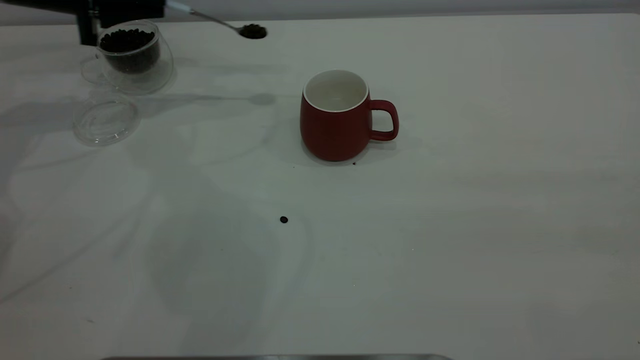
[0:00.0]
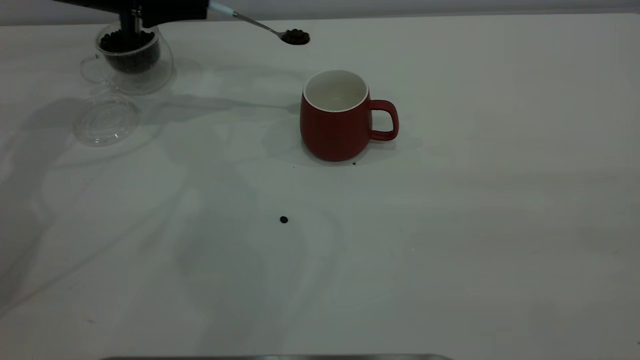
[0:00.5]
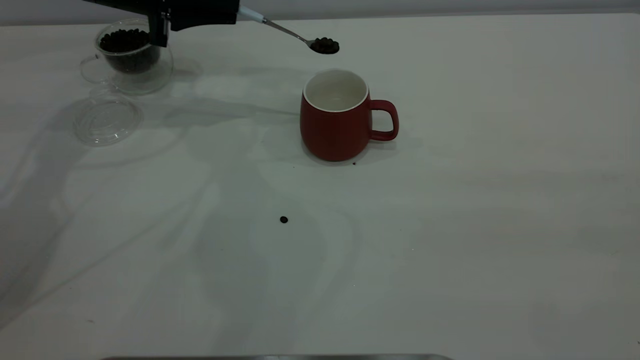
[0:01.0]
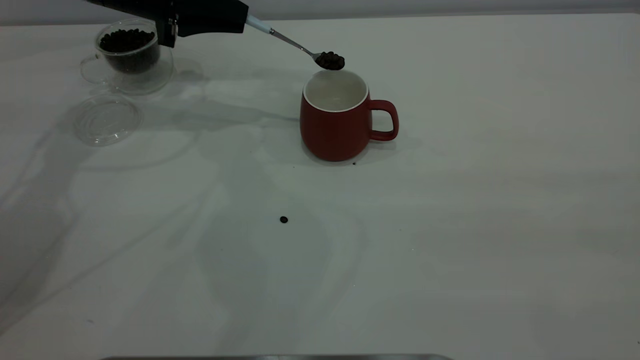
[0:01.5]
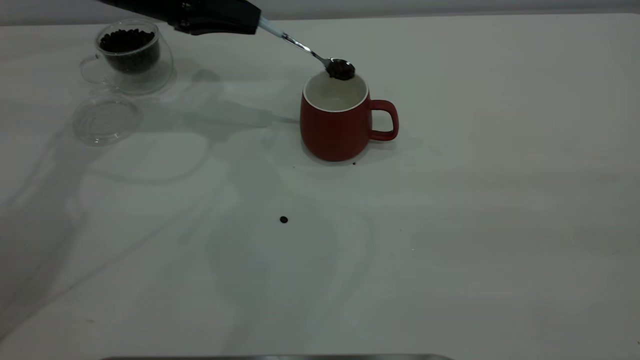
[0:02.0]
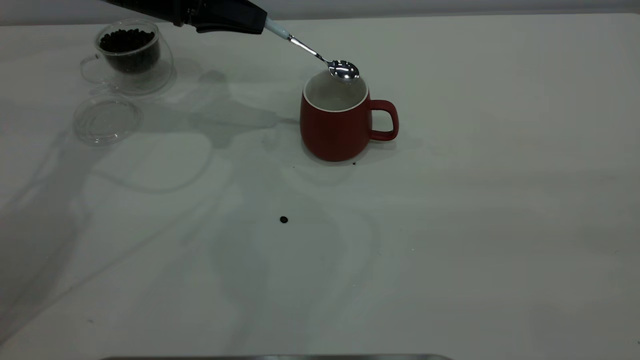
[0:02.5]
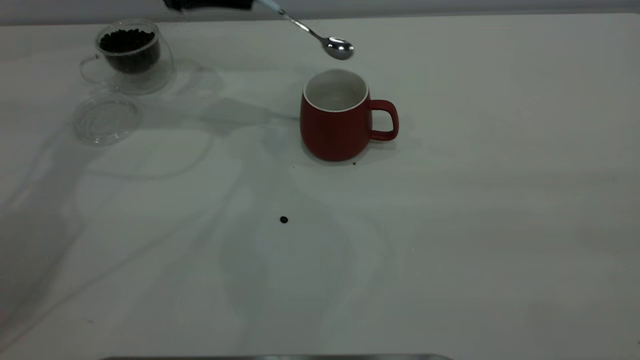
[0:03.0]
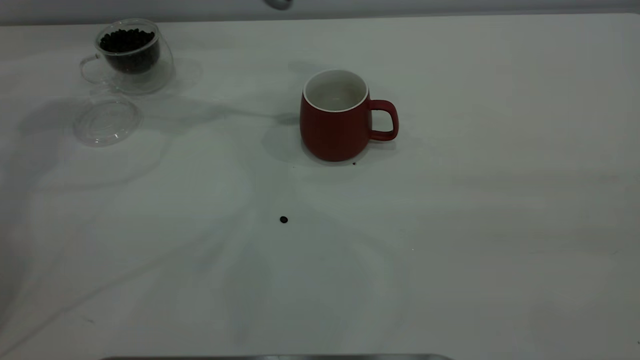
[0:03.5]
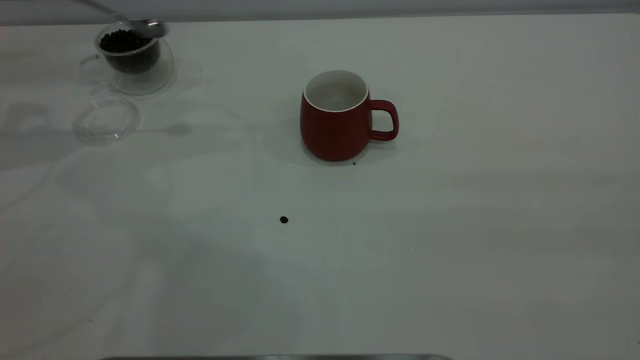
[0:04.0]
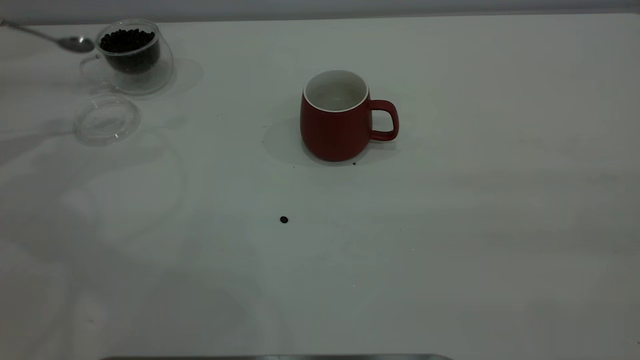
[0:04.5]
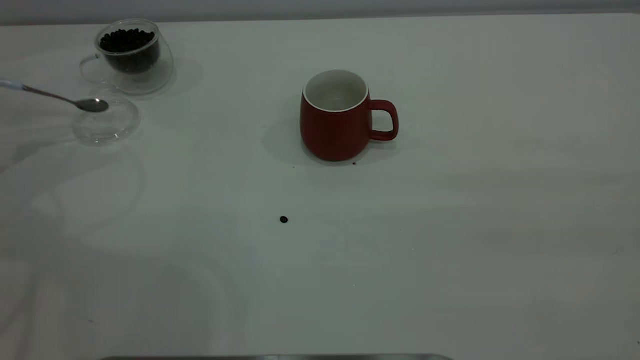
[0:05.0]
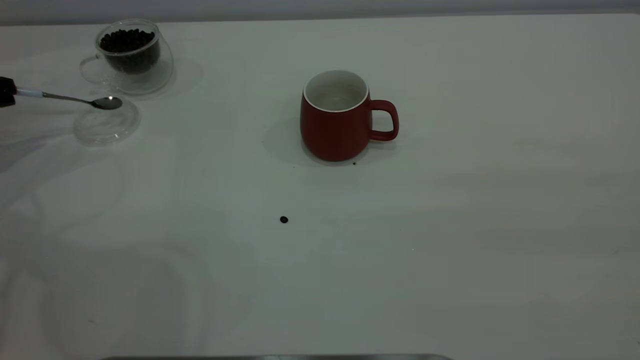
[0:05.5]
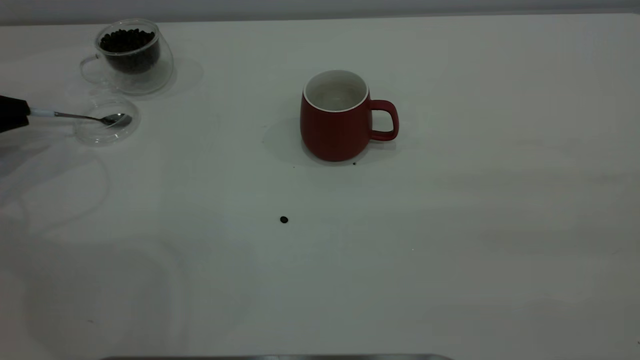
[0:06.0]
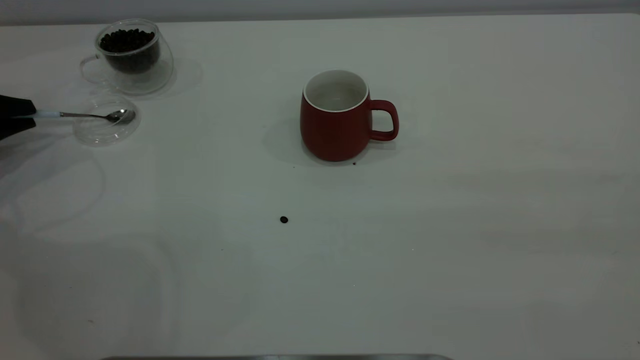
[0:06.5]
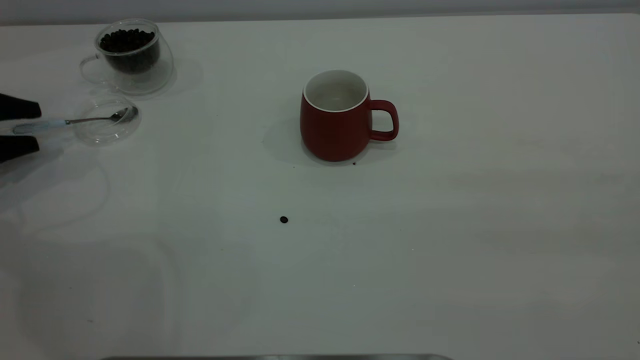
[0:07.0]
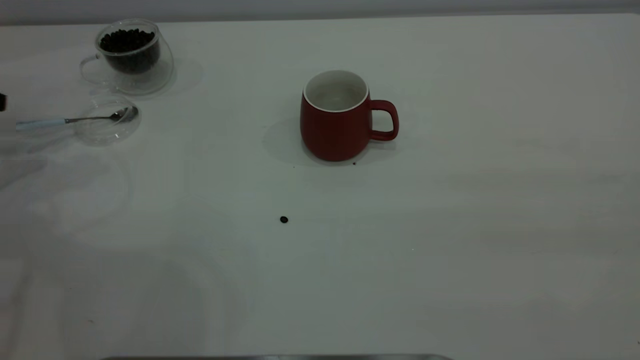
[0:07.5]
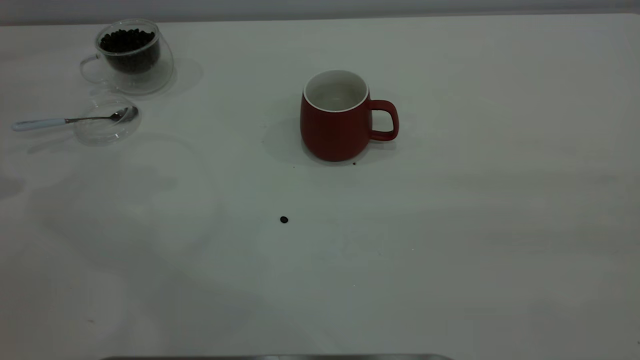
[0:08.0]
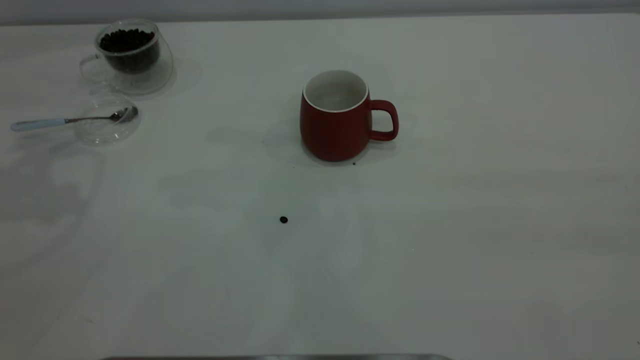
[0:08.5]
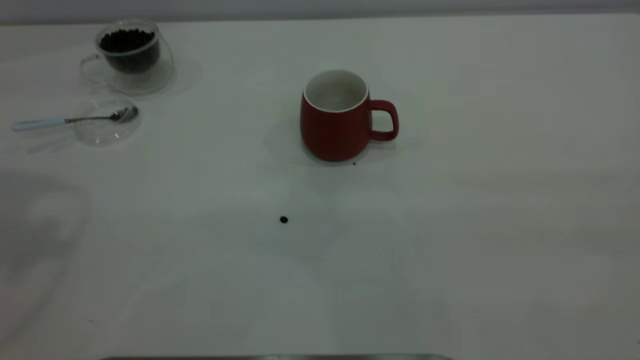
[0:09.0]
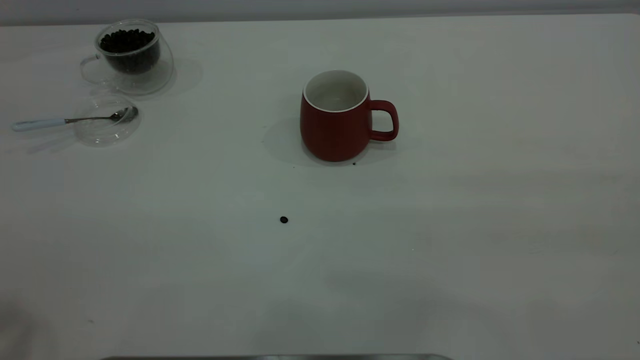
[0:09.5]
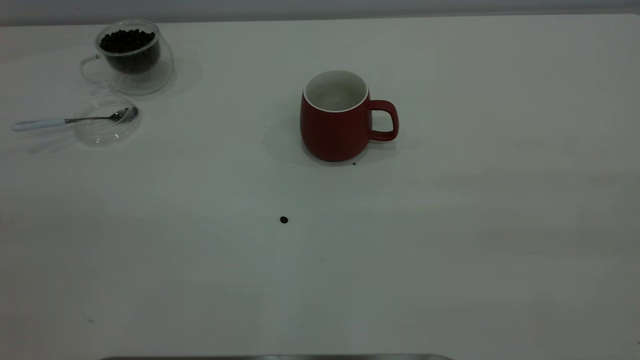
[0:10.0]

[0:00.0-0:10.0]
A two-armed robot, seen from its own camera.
Task of the whole recording: the right gripper place the red cup in the center of the table, the left gripper take the blue spoon from the cup lid and scoop out the coffee beans from the coffee cup and put them into the red cup, the left gripper put the spoon back into the cup lid.
Step, 0:00.0 to 0:02.5: Scoop a spoonful of beans into the cup.
Step, 0:03.0 to 0:07.0: Place the spoon back in its original place.
0:00.0 to 0:02.0: The left gripper travels to the right by some 10 cm.
0:02.0 to 0:04.0: The left gripper moves to the left, roughly 20 cm.
0:04.0 to 0:06.0: The left gripper shifts about 15 cm downward.
0:06.0 to 0:08.0: The left gripper moves upward, about 20 cm, and opens.

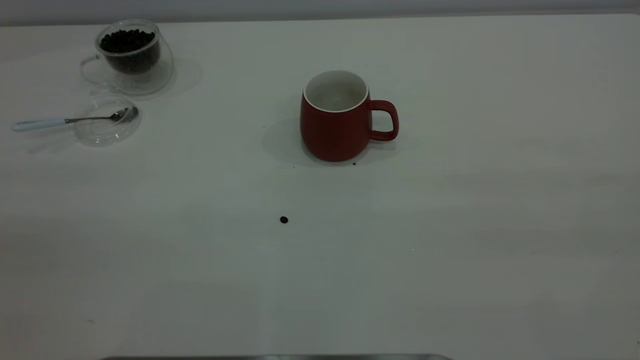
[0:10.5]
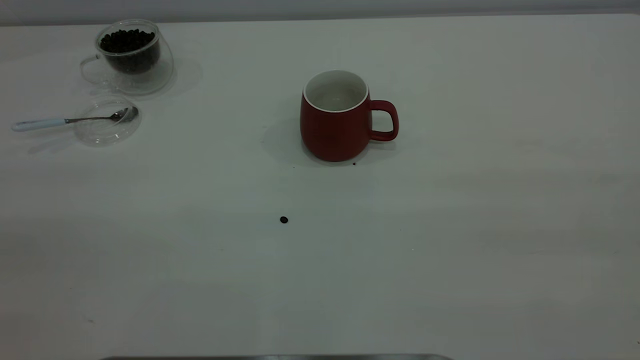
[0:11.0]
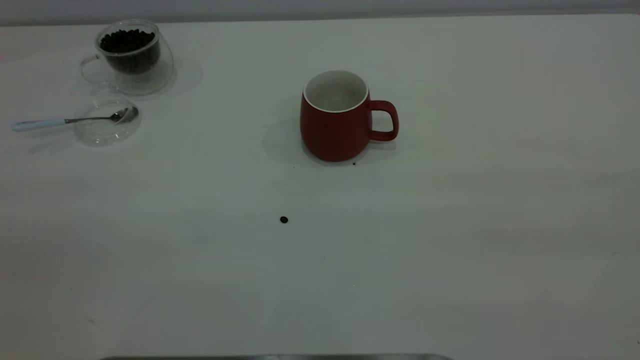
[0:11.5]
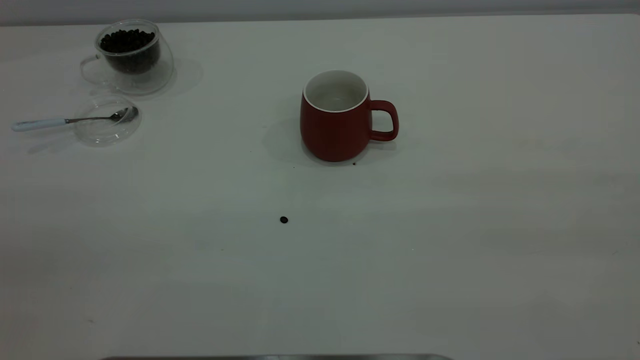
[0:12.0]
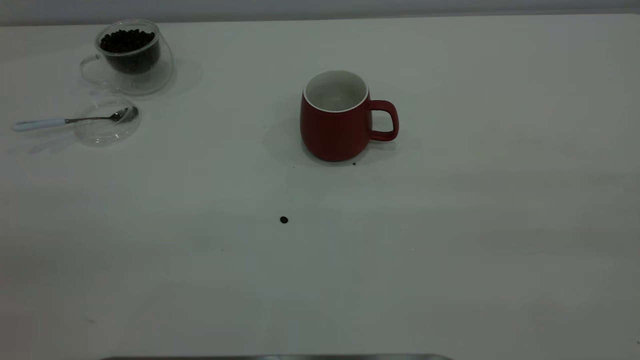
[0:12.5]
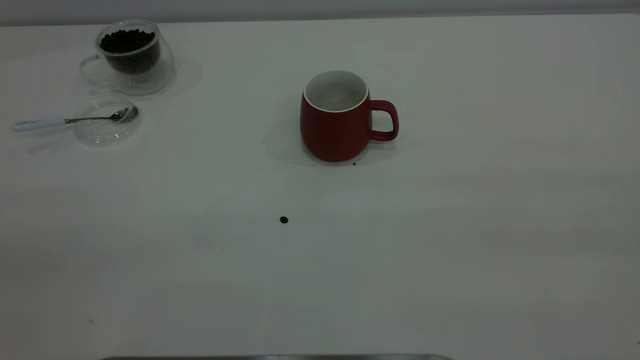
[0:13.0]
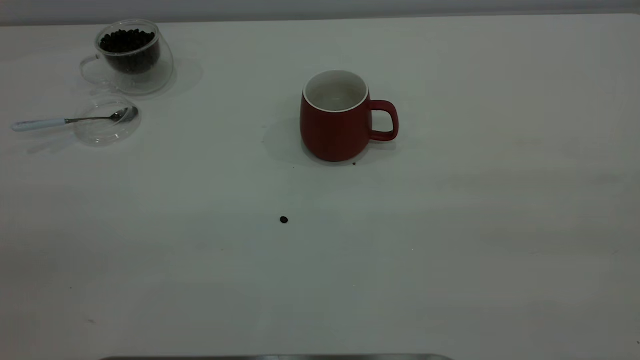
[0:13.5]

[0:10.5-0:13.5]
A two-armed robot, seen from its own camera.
Task of the whole recording: the right gripper place the red cup in the center of the table, the left gripper take the blue spoon from the cup lid and scoop out the coffee beans from the coffee cup and put them into the red cup, the left gripper put the spoon back into the cup lid.
0:12.0 to 0:13.5: Both grippers stay put.
